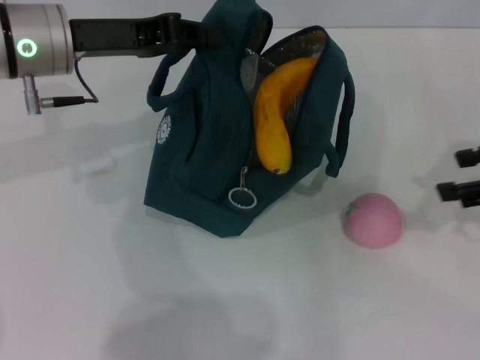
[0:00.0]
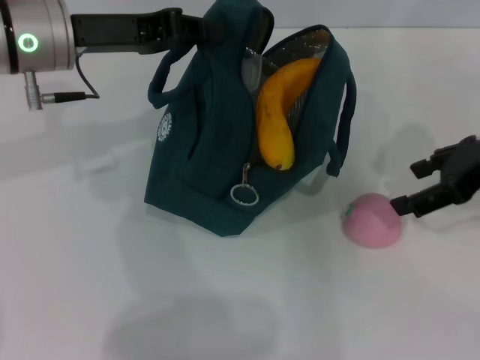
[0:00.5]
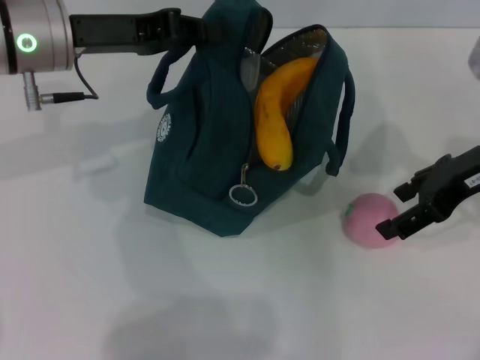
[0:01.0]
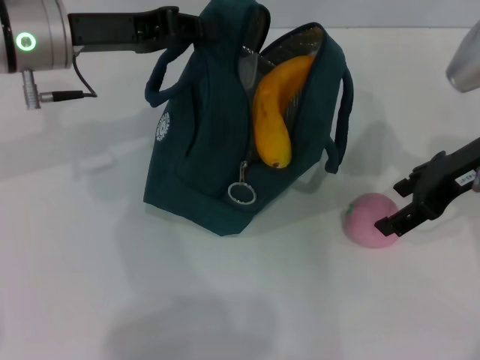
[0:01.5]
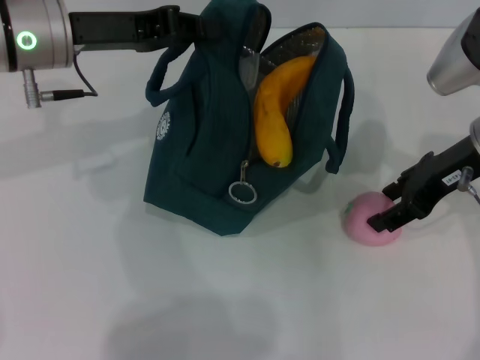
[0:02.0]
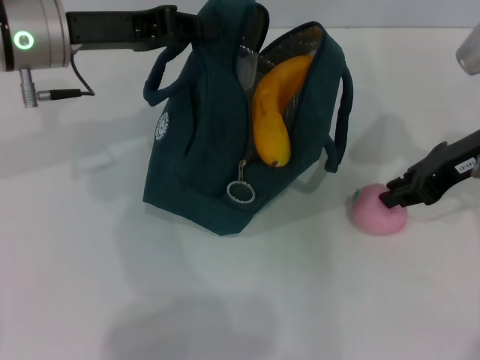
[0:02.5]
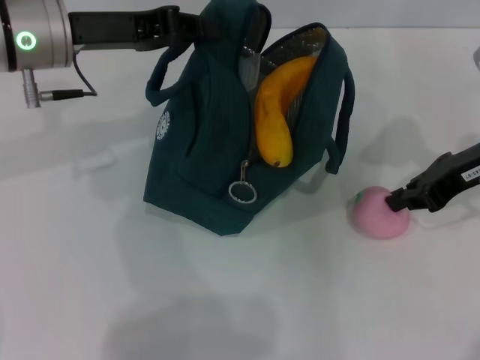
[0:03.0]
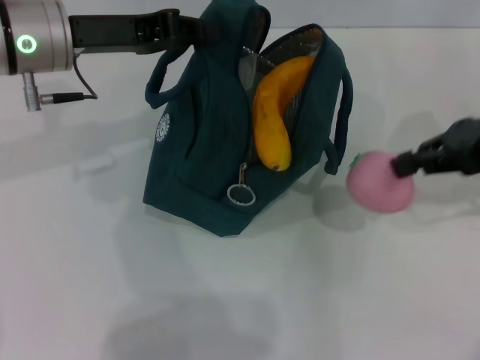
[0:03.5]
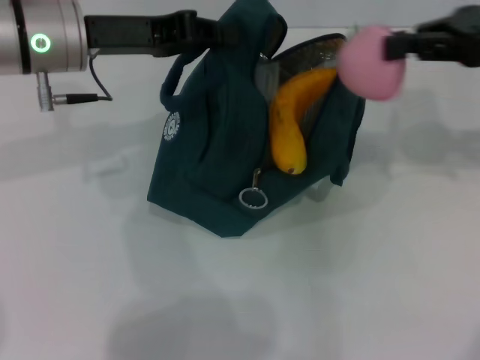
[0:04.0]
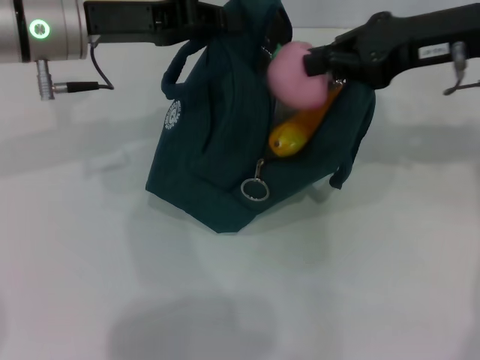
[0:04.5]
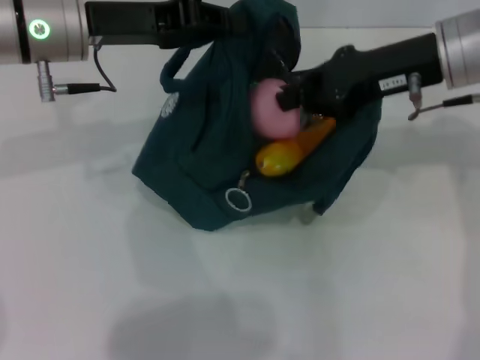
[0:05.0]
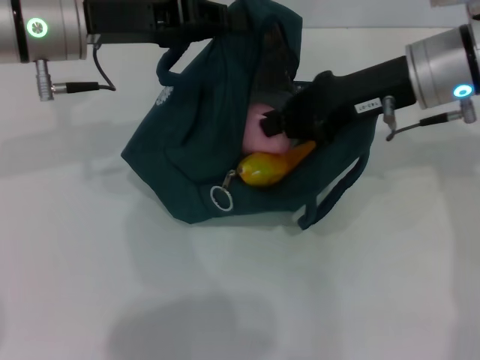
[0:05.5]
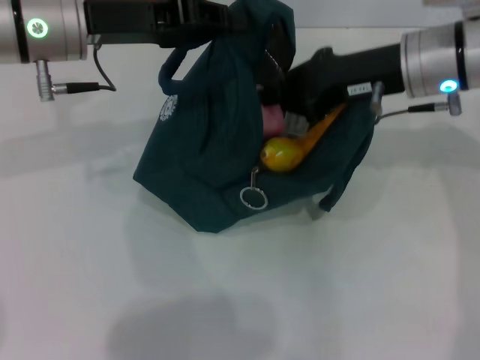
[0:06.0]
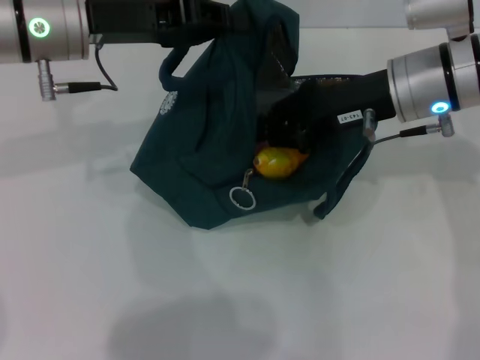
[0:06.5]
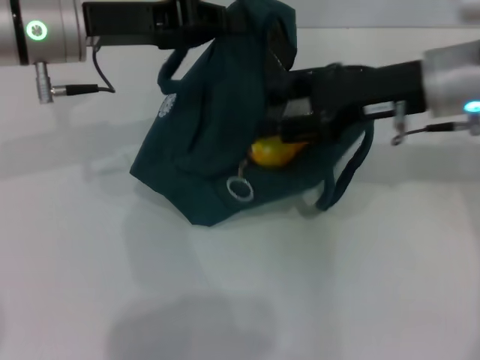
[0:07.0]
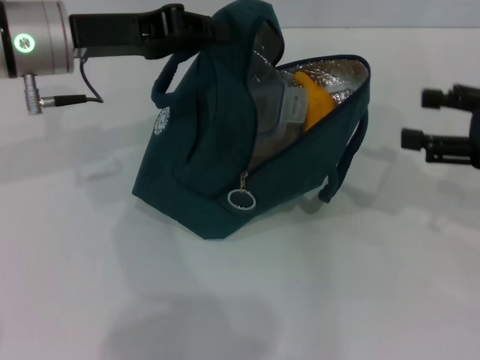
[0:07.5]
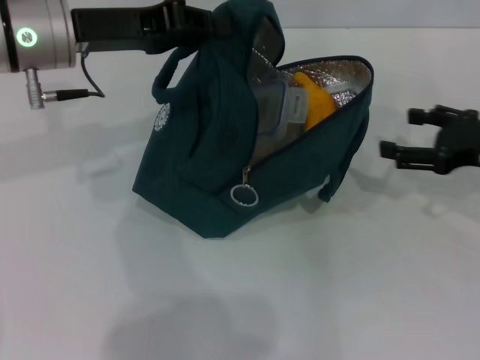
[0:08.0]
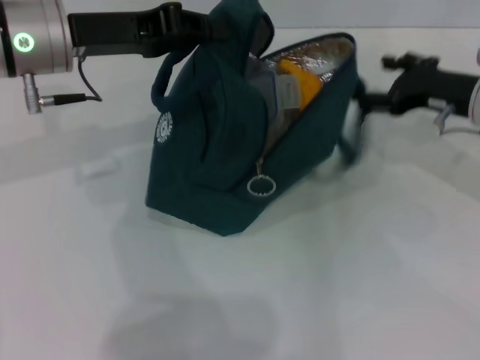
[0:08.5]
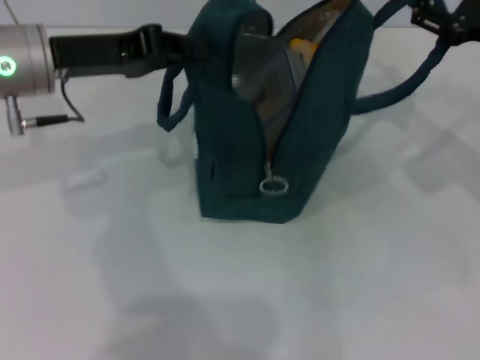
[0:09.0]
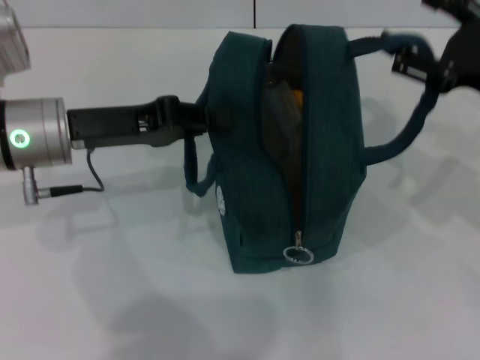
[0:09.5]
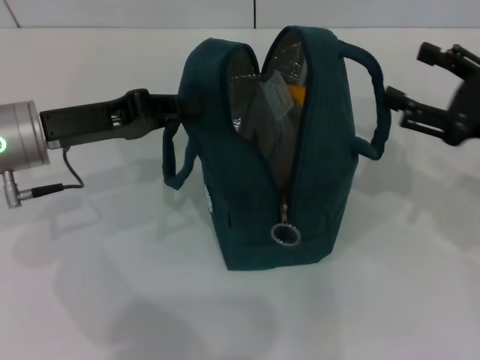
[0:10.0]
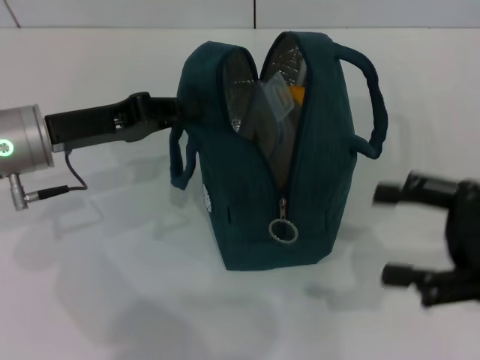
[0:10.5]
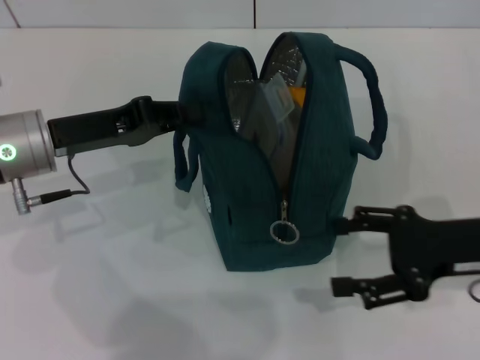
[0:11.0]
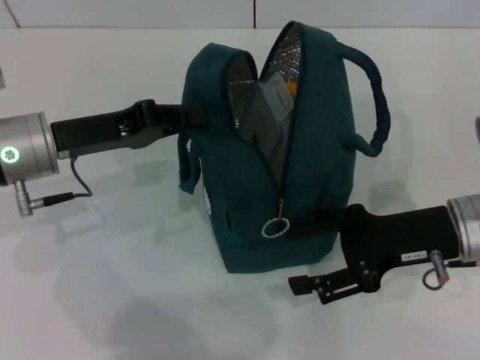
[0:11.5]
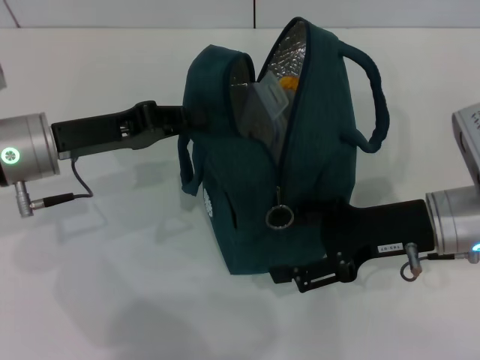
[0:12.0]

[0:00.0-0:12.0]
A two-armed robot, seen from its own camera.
Step, 0:00.0 to 0:02.0: Grab the peach with your right hand.
Step, 0:07.5 to 0:09.5: Hold the lunch bag with your right hand.
0:00.0 to 0:02.0: The right gripper heads to the left and forward, covering approximately 10 cm.
0:02.0 to 0:04.0: The right gripper goes roughly 10 cm upward and to the right, and closes.
0:04.0 to 0:06.0: The right gripper shifts some 15 cm to the left and downward.
0:06.0 to 0:08.0: The right gripper travels to the right, downward and backward by some 15 cm, and opens its fingers.
0:08.0 to 0:10.0: The left gripper is displaced downward and backward by about 10 cm.
0:10.0 to 0:12.0: The right gripper heads to the left, covering some 10 cm.

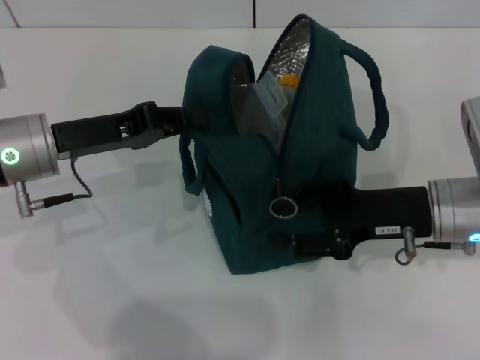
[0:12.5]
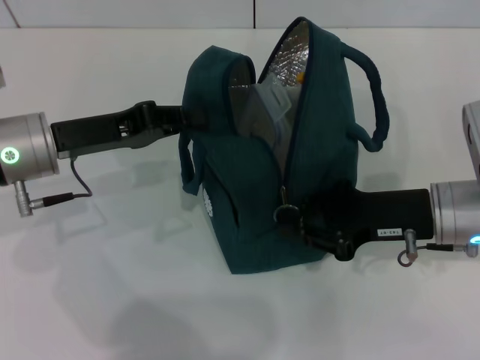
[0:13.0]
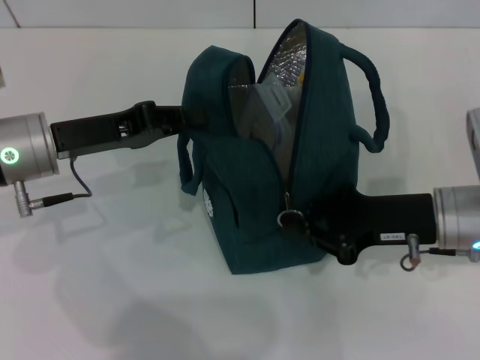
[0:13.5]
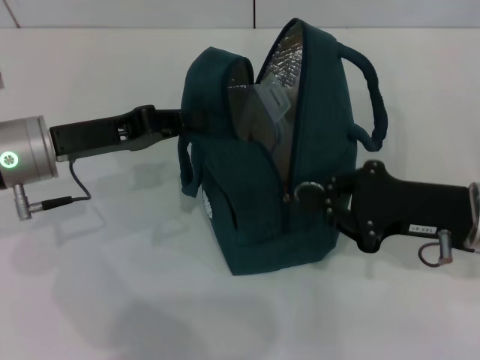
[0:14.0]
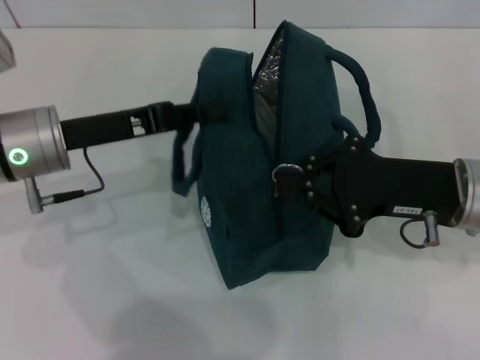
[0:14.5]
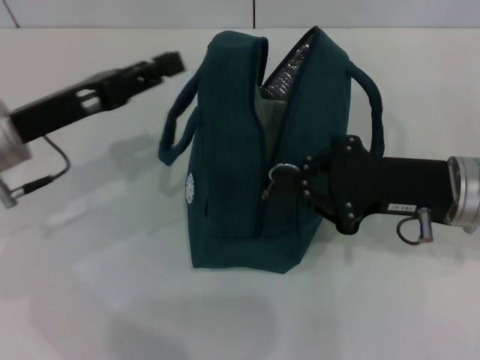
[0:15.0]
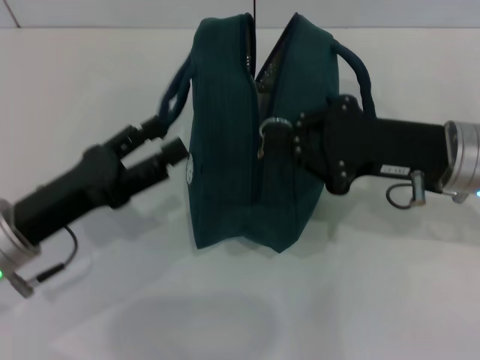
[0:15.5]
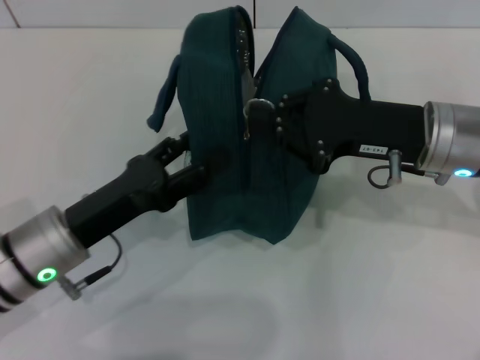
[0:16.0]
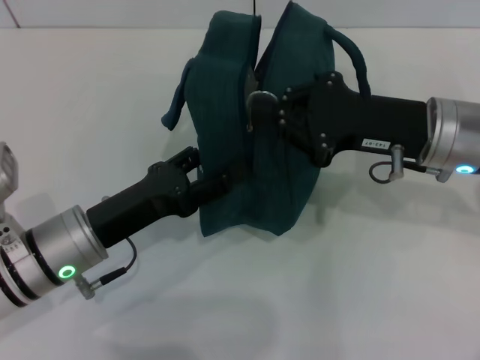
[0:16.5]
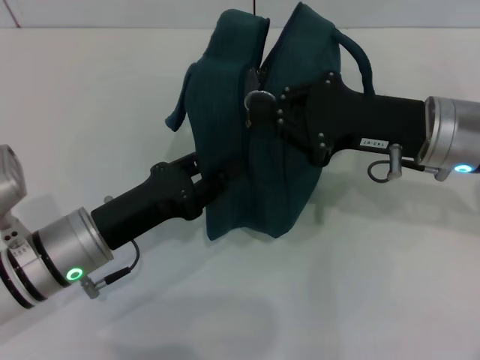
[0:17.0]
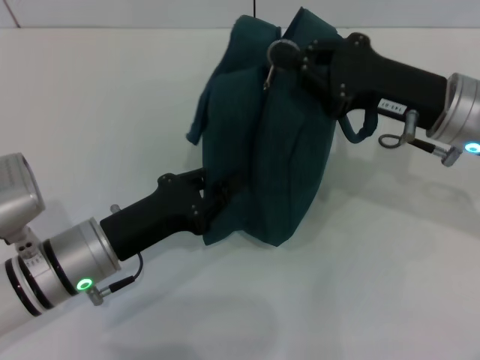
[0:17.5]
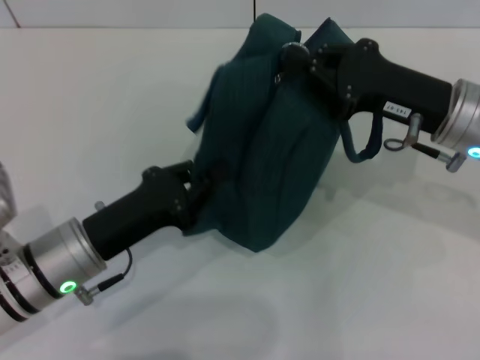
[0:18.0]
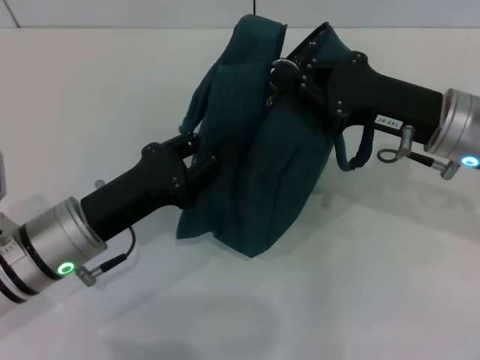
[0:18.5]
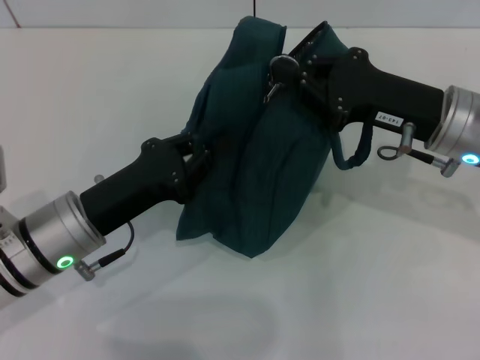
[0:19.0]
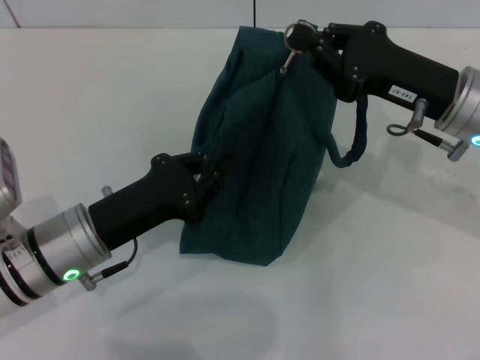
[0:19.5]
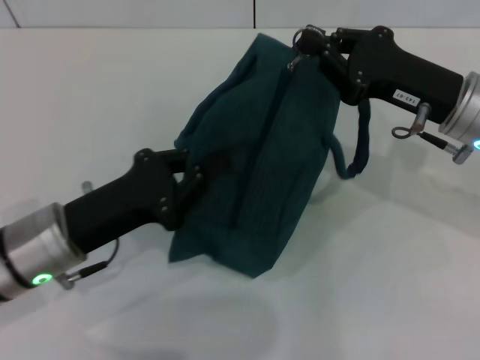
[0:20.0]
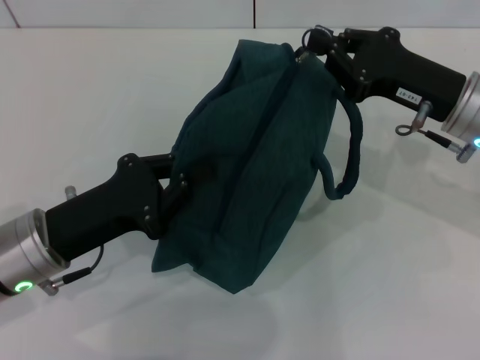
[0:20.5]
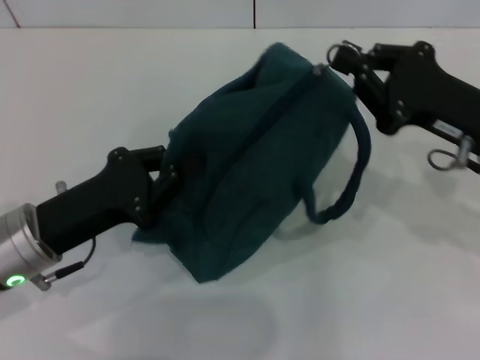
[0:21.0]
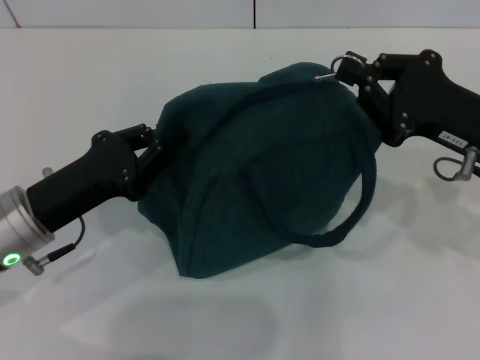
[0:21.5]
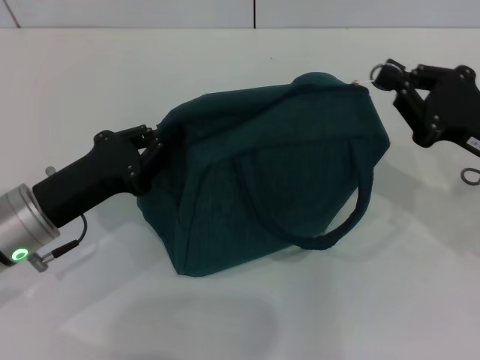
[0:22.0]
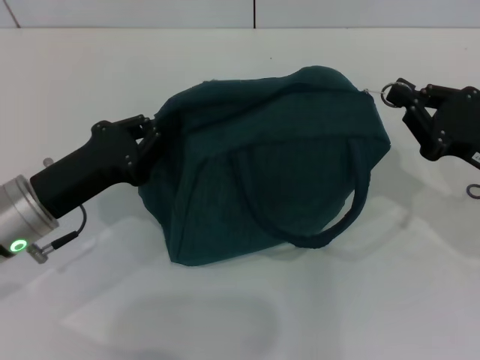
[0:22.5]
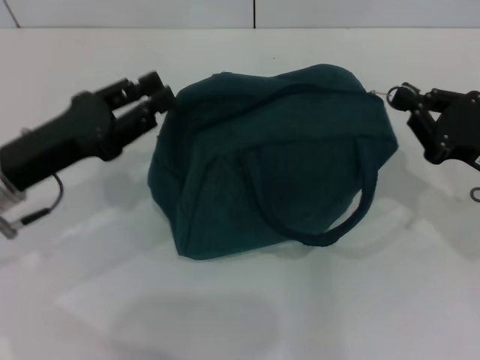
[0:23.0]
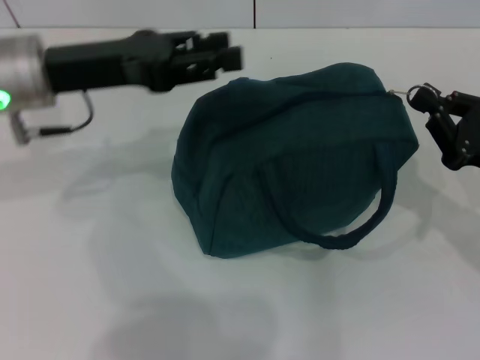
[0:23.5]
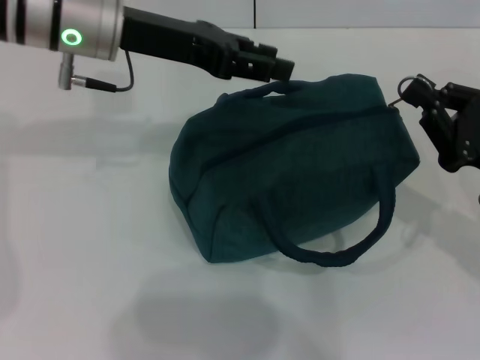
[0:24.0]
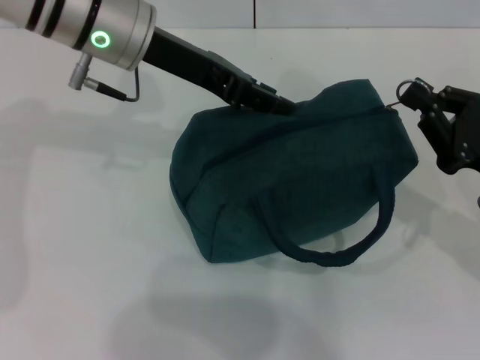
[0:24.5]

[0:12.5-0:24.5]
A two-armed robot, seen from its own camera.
Step, 0:12.5 to 0:14.5: Hold the lunch bag with your left hand.
0:12.5 to 0:14.5: The right gripper closes up.
0:14.5 to 0:16.5: The right gripper moves some 5 cm. Meanwhile the left gripper travels downward and backward by approximately 10 cm, and opens up.
0:16.5 to 0:18.5: The left gripper closes up.
0:18.5 to 0:20.5: There are only small adjustments of the grippers.
0:20.5 to 0:22.5: The right gripper shifts some 10 cm to the right and backward.
0:22.5 to 0:24.5: The left gripper travels upward, forward and to the right by about 20 cm, and opens.

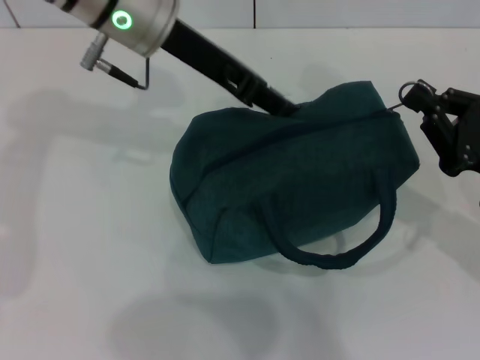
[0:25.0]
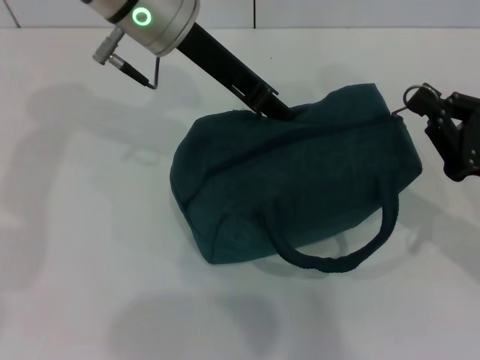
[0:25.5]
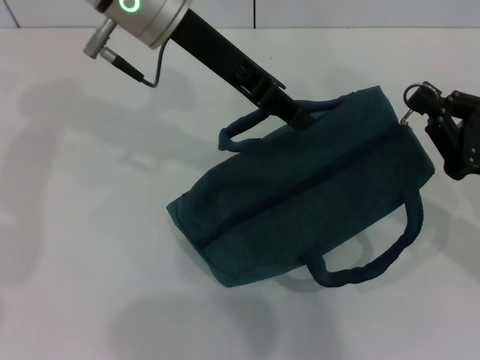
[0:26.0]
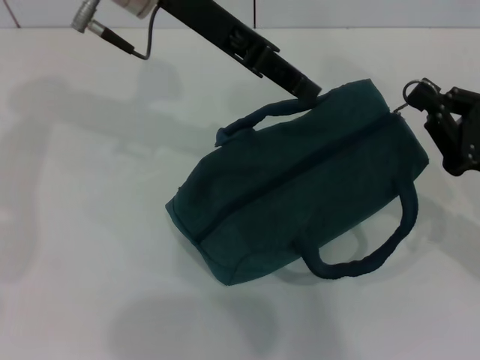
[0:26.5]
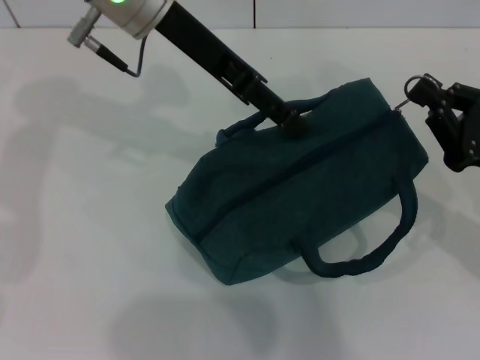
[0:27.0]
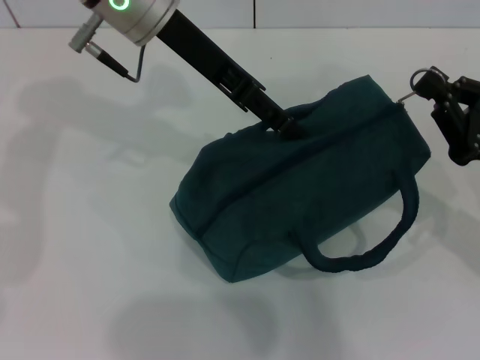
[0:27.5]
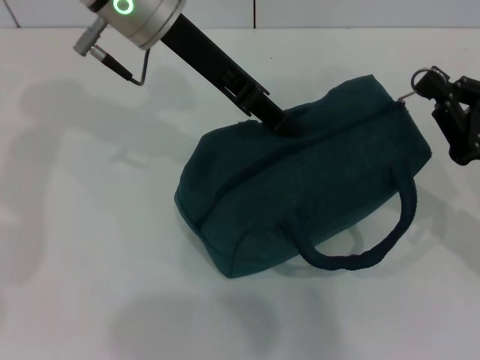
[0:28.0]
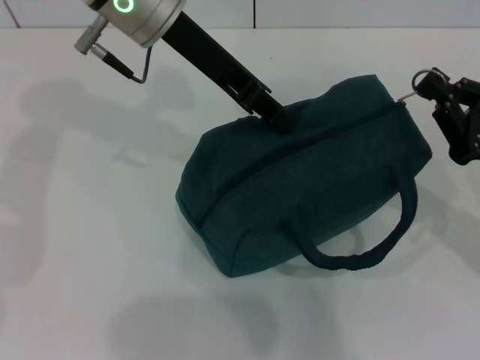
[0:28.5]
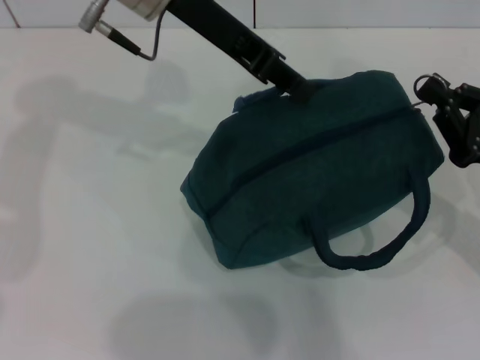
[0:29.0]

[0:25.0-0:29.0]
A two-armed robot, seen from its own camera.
0:25.0 to 0:27.0: The left gripper closes and opens again.
0:27.0 to 0:29.0: The left gripper closes its fingers.
